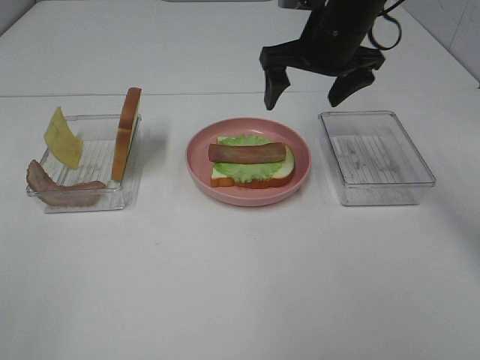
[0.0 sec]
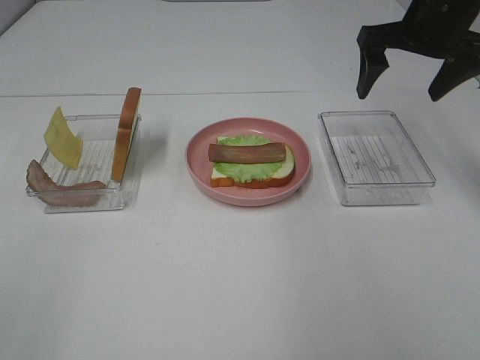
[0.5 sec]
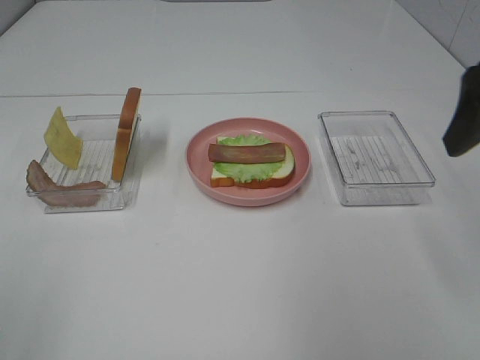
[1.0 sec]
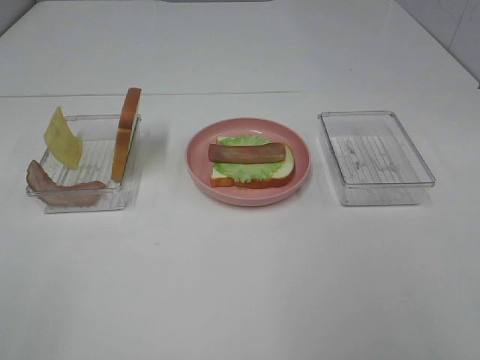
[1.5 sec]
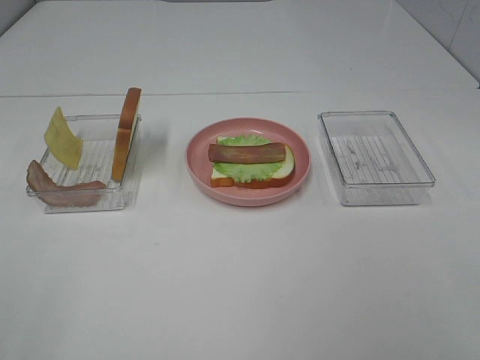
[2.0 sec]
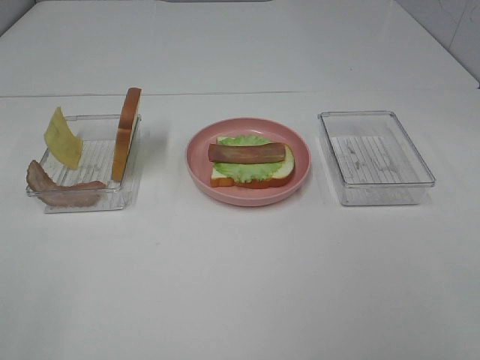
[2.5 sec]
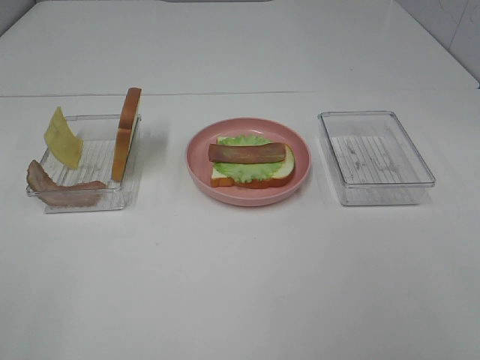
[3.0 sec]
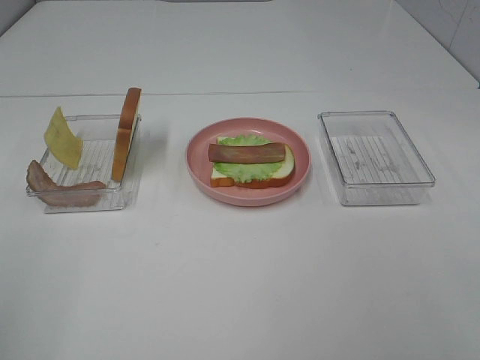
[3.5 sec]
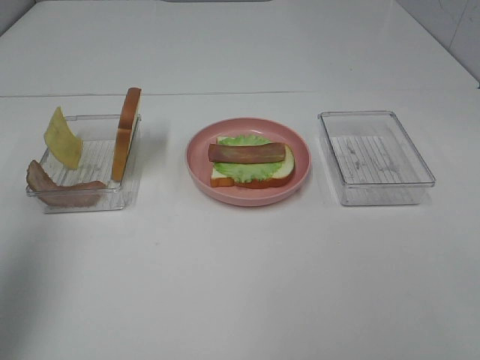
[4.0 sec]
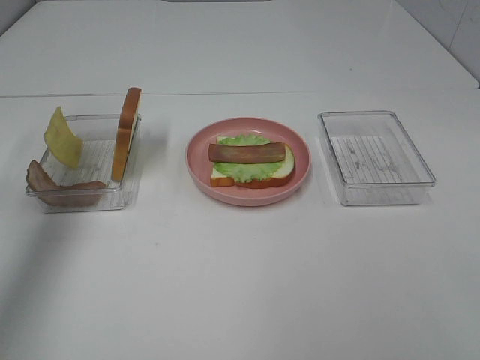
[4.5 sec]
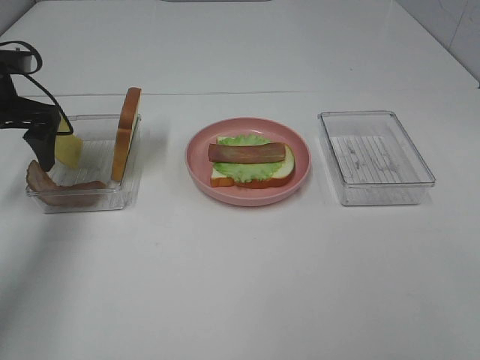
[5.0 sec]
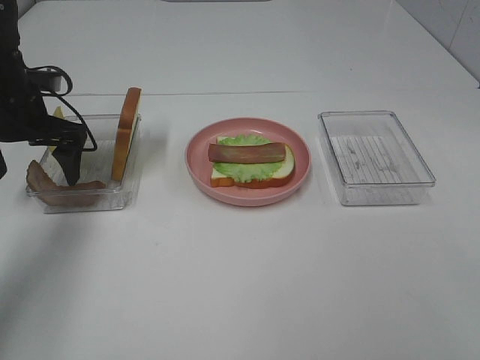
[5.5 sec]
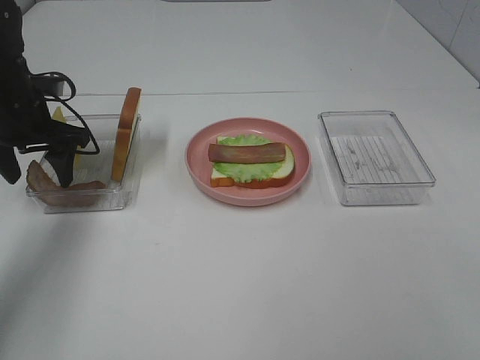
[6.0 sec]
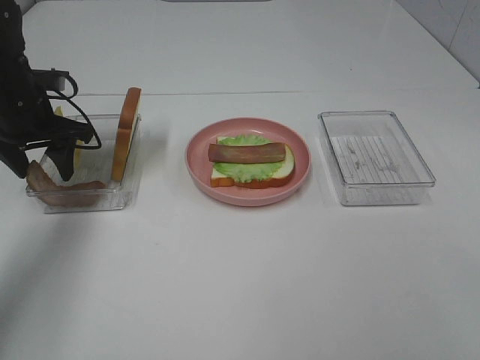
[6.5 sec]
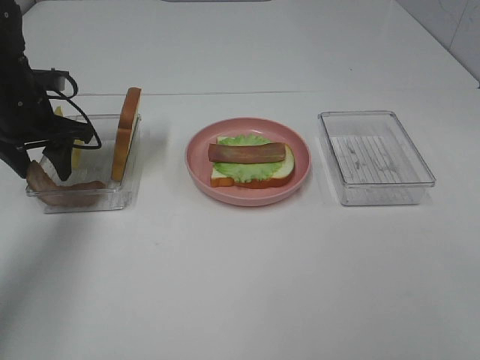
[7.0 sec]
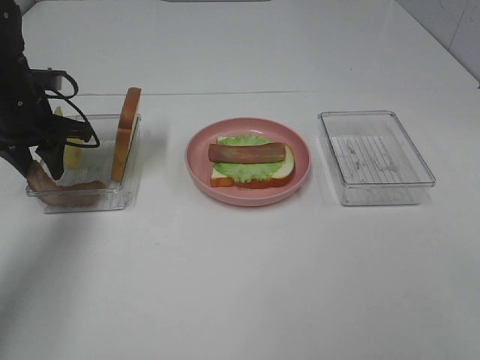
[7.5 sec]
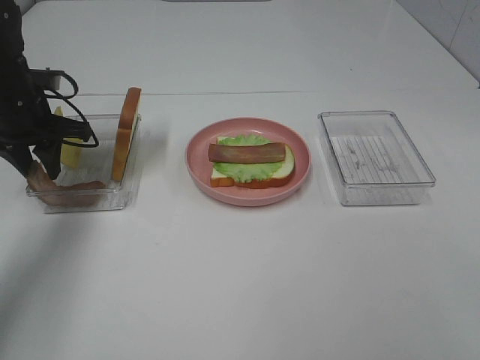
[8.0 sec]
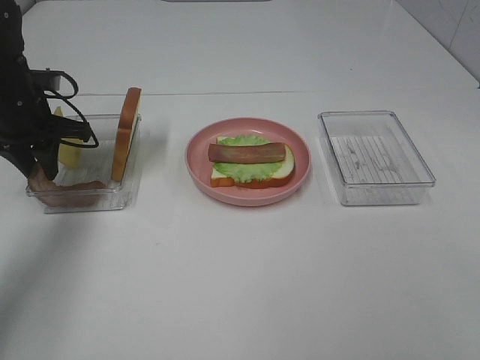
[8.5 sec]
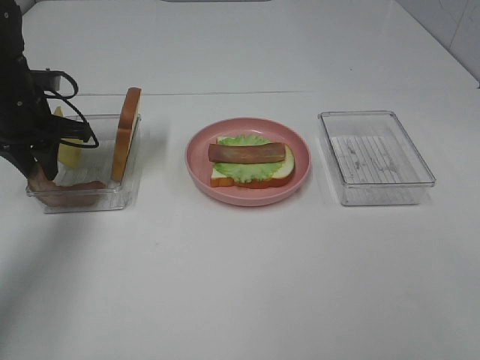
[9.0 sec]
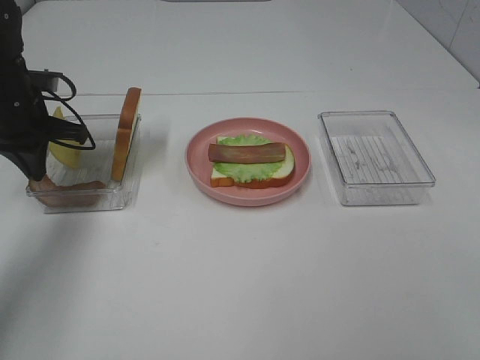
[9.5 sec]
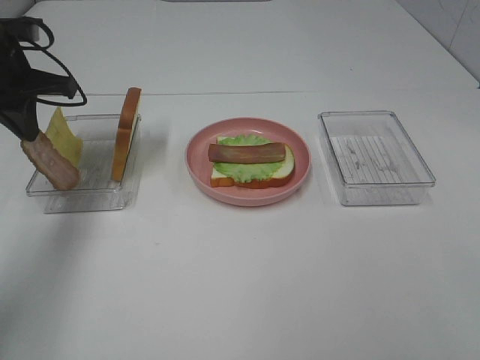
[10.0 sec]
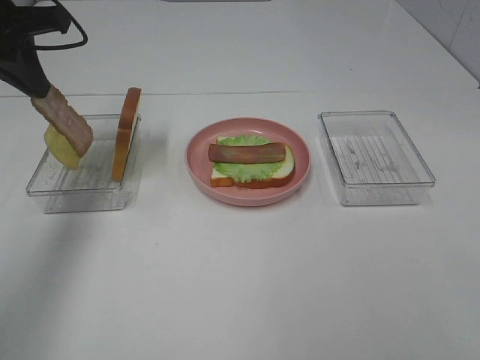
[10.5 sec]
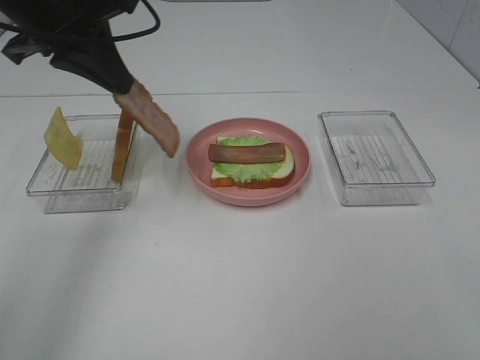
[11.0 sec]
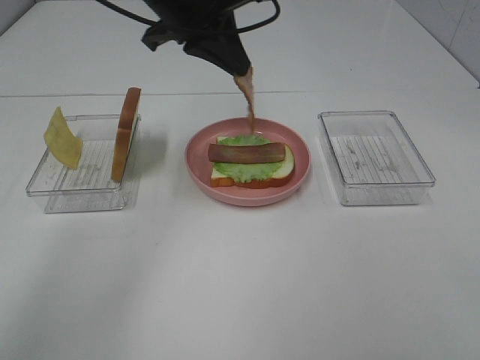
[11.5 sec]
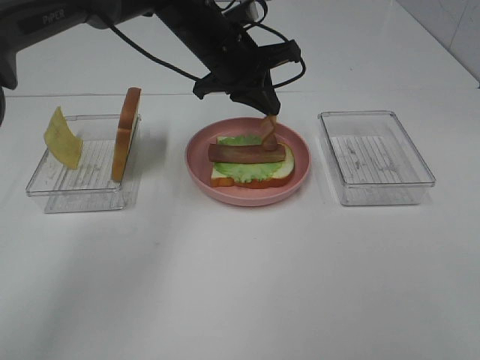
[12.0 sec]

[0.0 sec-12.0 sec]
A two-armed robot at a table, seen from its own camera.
Task of the whole recording: Make sandwiches.
Step, 0.0 sec to 9.0 sec: Left hand:grab the bacon.
0.0 sec to 2.0 sec: The right gripper is displaced backward by roughly 40 cm.
2.0 sec to 4.0 sec: The left gripper goes about 20 cm forward.
4.0 sec to 6.0 sec: The left gripper is displaced forward and downward by some 30 cm.
6.0 sec to 8.0 sec: There are only small adjustments of the grippers.
8.0 sec to 10.0 sec: The left gripper moves upward, some 5 cm.
10.0 sec to 12.0 sec: The left gripper moves to the right, some 25 cm.

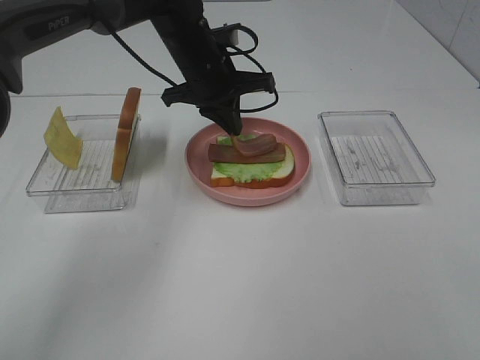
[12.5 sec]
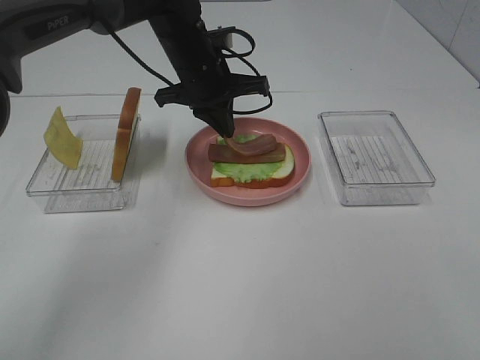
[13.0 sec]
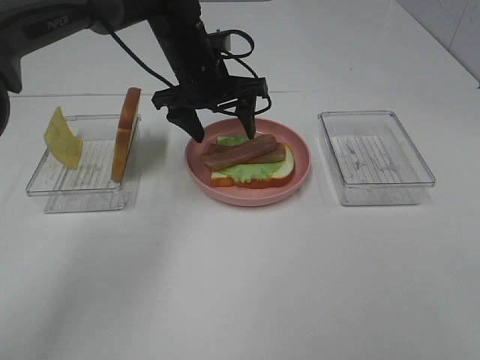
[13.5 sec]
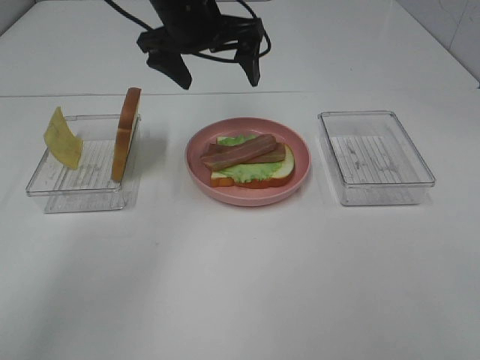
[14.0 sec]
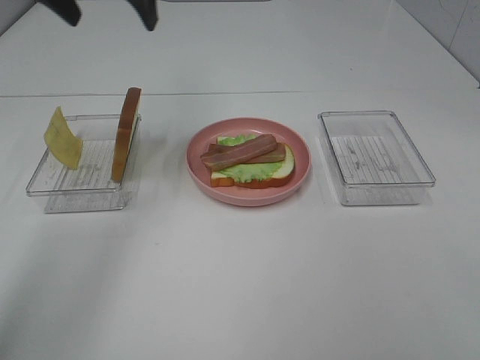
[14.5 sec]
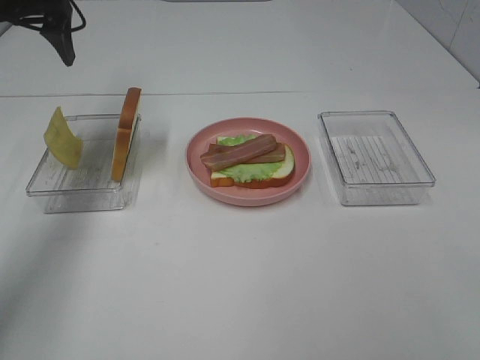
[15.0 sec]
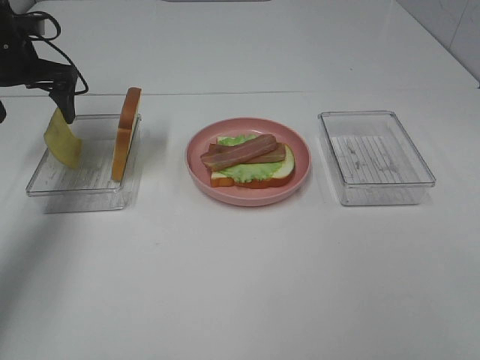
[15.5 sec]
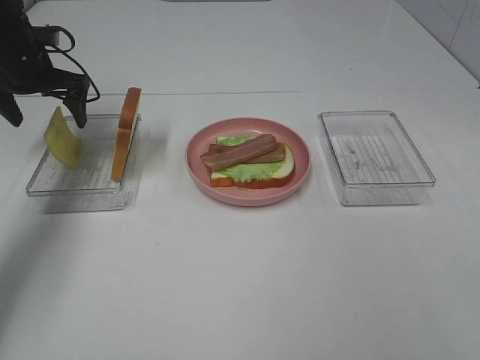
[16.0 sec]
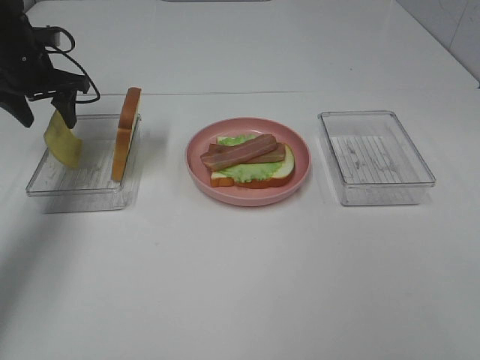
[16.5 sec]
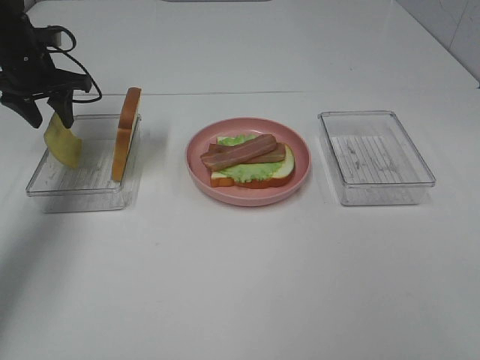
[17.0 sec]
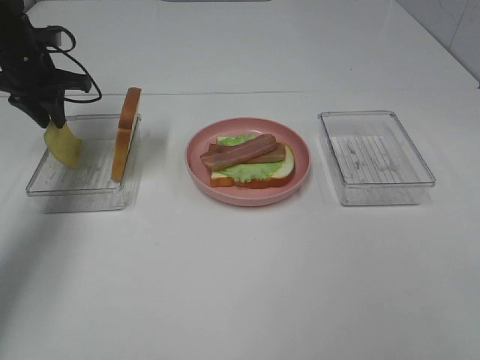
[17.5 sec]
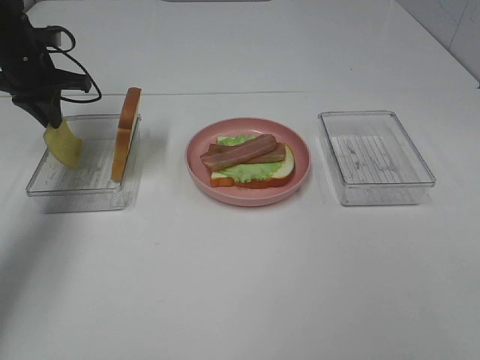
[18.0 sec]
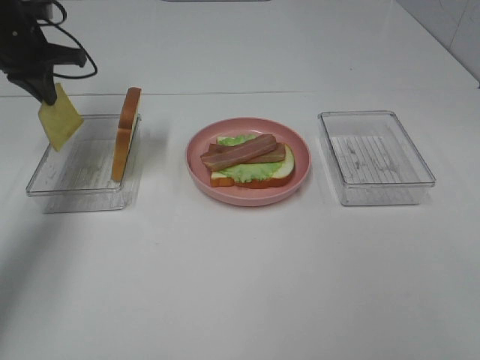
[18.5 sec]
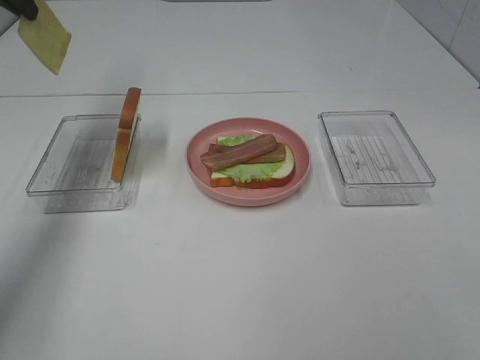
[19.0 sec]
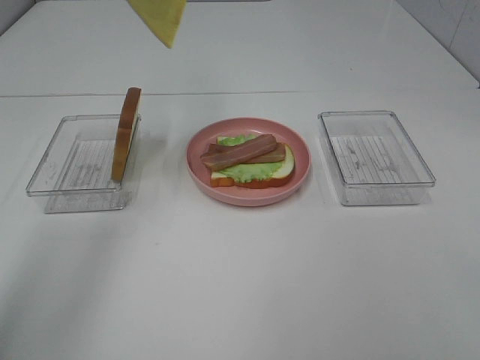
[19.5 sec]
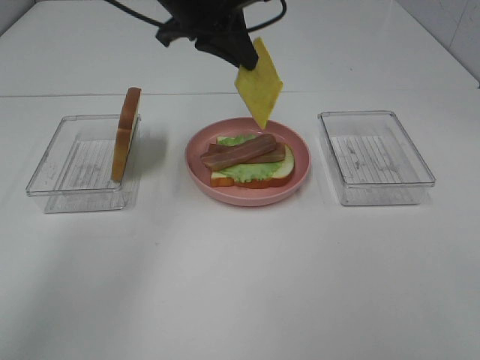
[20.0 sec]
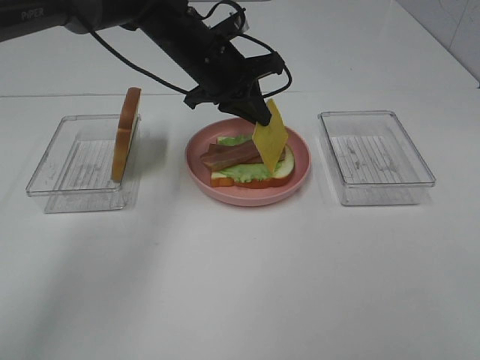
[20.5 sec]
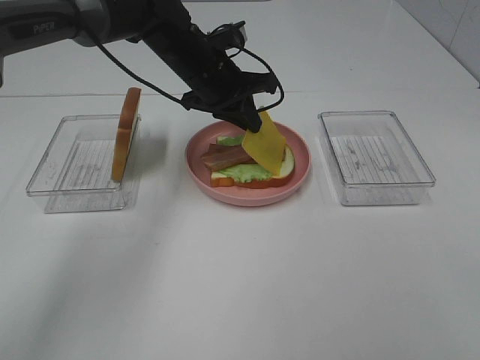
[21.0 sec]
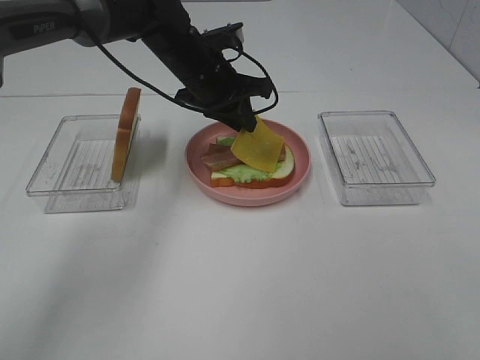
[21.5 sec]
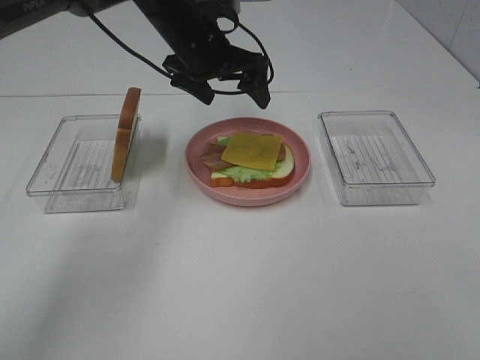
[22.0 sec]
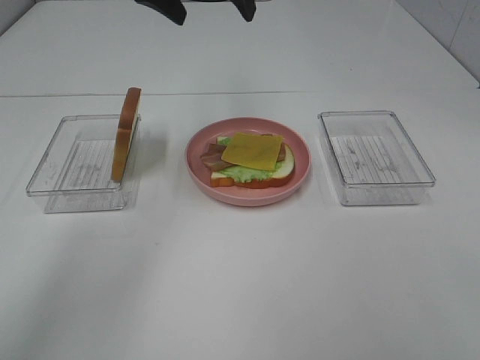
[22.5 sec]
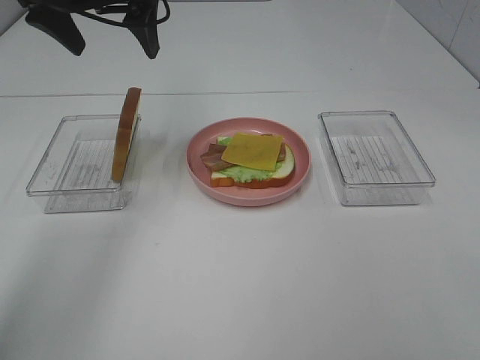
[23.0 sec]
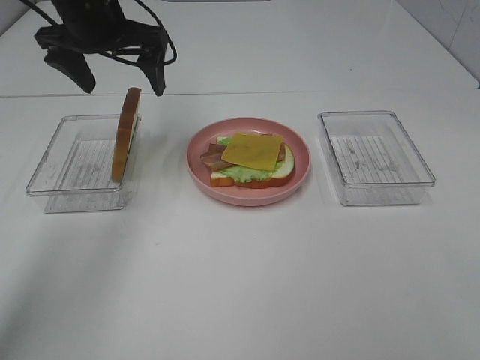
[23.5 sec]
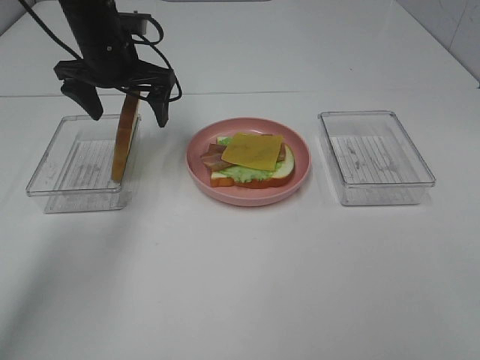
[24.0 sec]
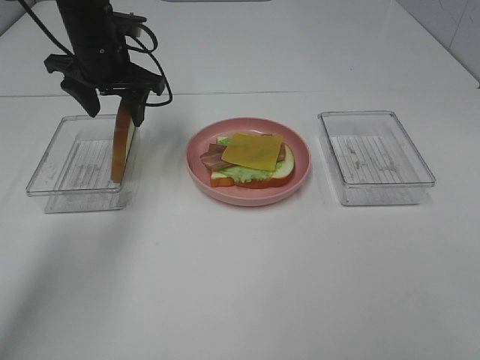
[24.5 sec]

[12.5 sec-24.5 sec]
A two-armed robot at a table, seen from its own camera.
Task of the whole recording: Make sandwiches.
Step, 13.5 sec to 18.0 sec: Left hand:grab the cheese slice.
Step, 18.5 sec to 21.5 sec: Left hand:place the cheese slice on top of the bacon.
12.5 sec to 14.5 sec: The left gripper heads upward and to the left, covering about 20 cm, and opens its fingers.
14.5 sec to 16.5 sec: The left gripper moves downward, to the left and forward, roughly 20 cm.
16.5 sec to 18.5 sec: The left gripper closes.
18.5 sec to 20.5 sec: The left gripper moves to the right, some 25 cm.
20.5 sec to 22.5 sec: The left gripper is displaced upward by approximately 15 cm, and opens its fingers.
22.5 sec to 24.5 sec: The left gripper travels downward and to the left by approximately 15 cm, and closes.

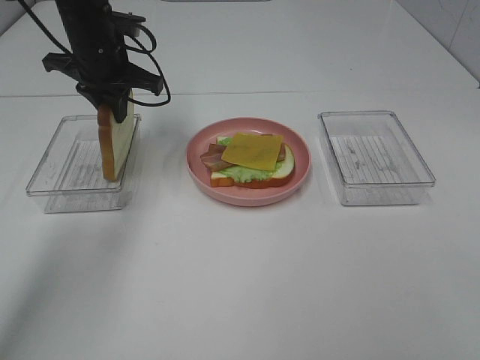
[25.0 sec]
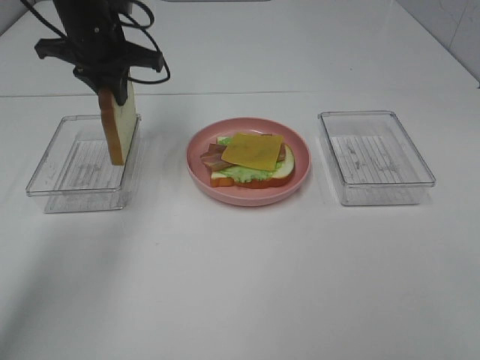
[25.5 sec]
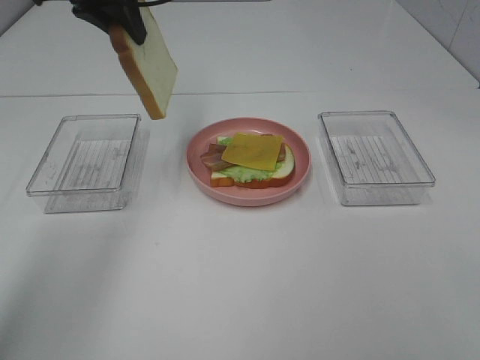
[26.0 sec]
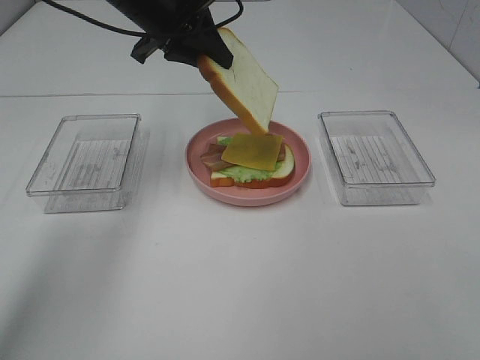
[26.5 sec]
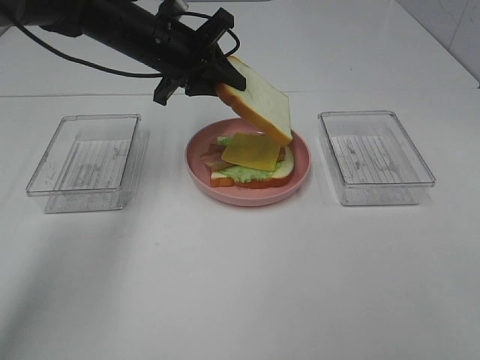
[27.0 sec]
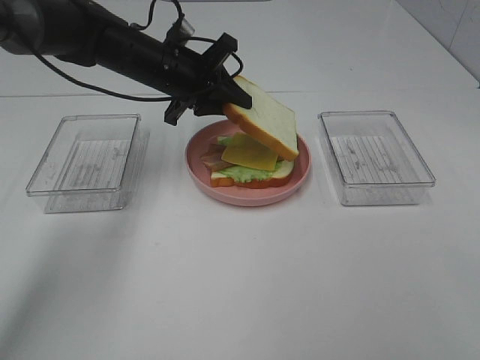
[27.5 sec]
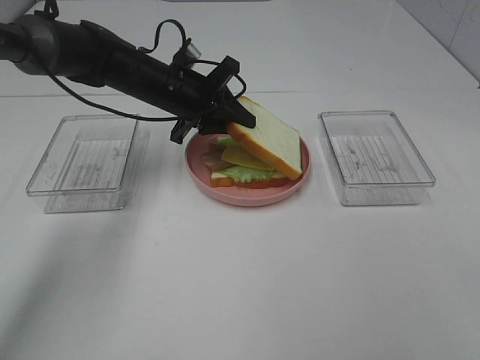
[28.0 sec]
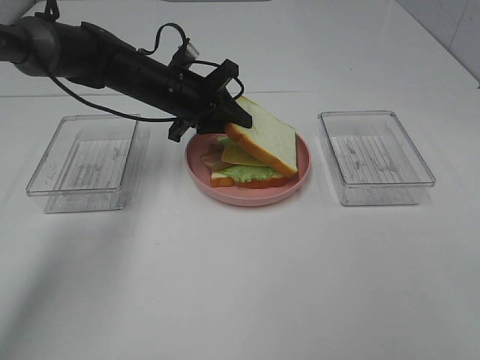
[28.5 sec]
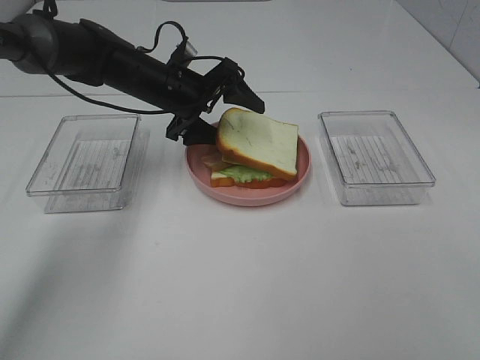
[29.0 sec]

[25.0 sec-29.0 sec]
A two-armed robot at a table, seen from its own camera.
Task of the whole recording: Make sandwiches.
25.0 sec to 27.0 sec: The left gripper travels to the right by about 5 cm, and moves approximately 10 cm upward and comes back.
27.0 sec to 29.0 sec: The left gripper heads downward, covering some 5 cm, and opens.
